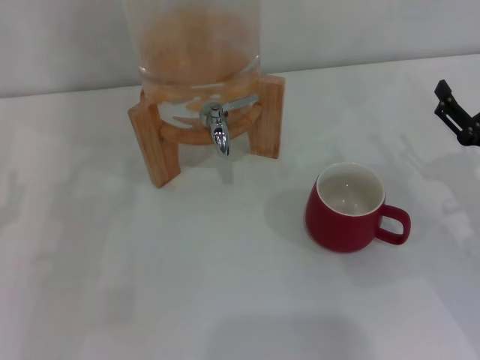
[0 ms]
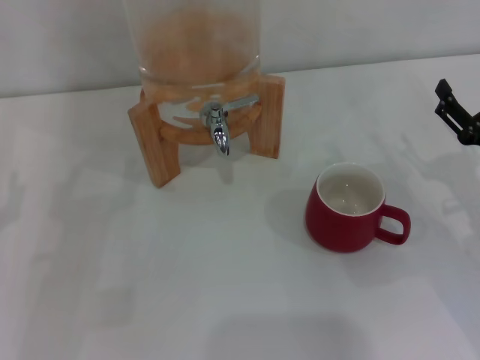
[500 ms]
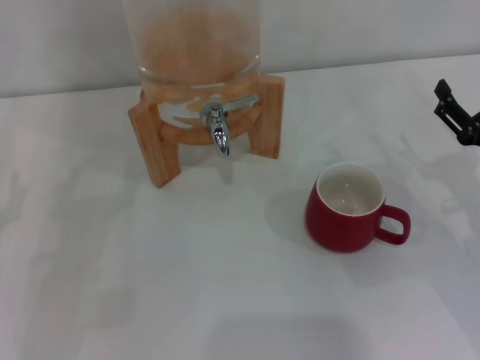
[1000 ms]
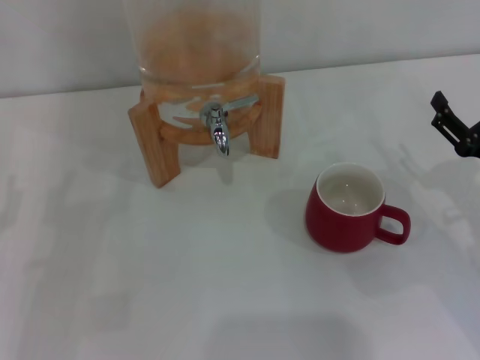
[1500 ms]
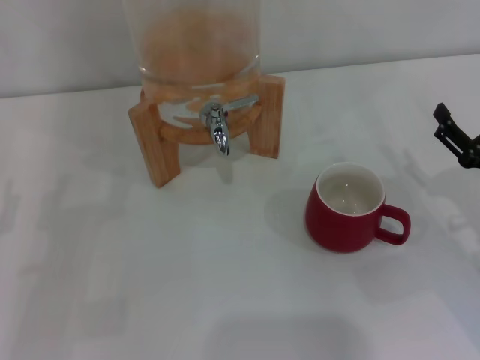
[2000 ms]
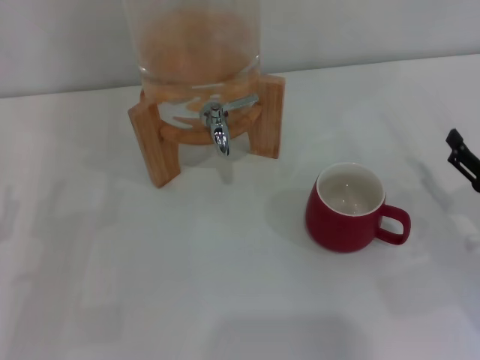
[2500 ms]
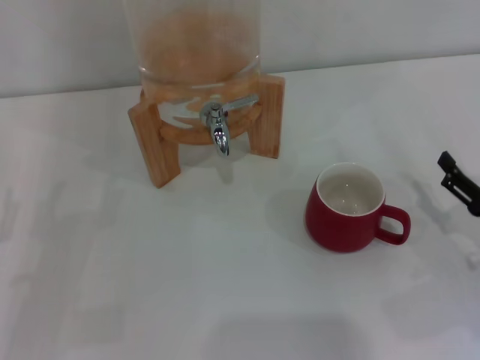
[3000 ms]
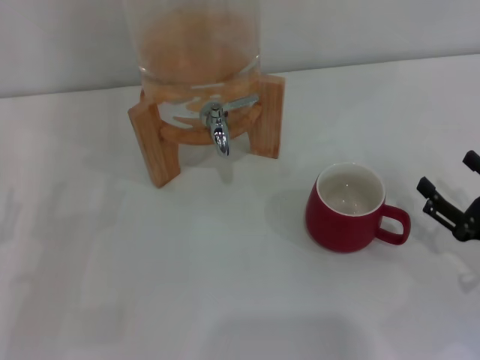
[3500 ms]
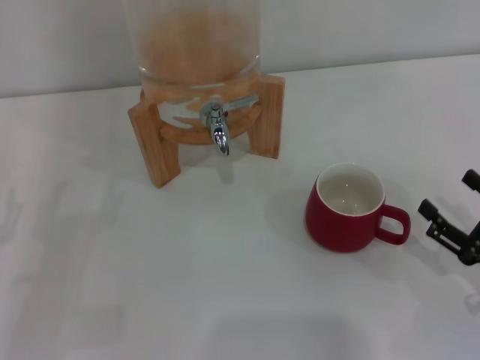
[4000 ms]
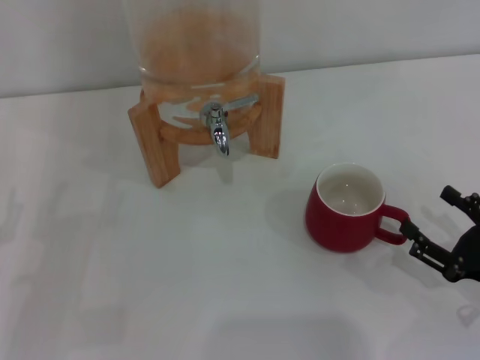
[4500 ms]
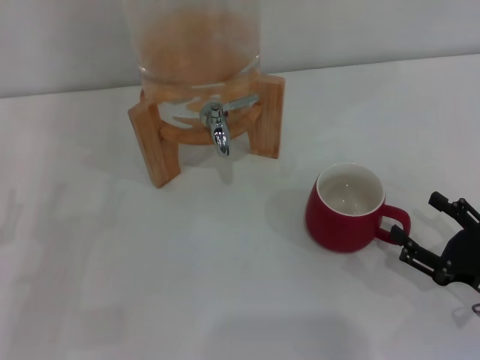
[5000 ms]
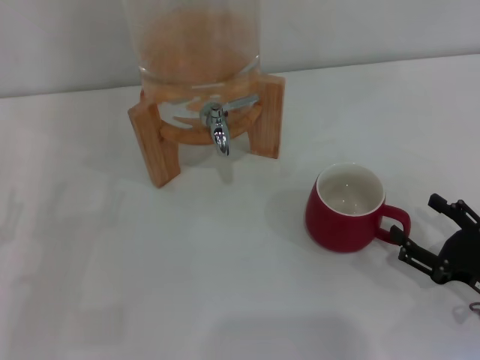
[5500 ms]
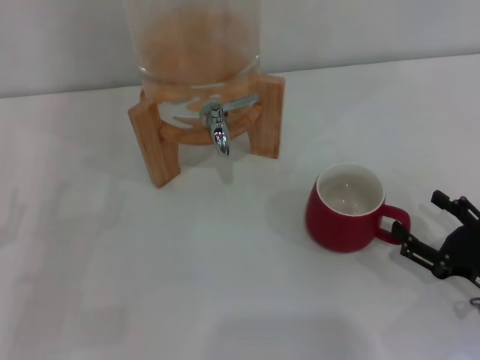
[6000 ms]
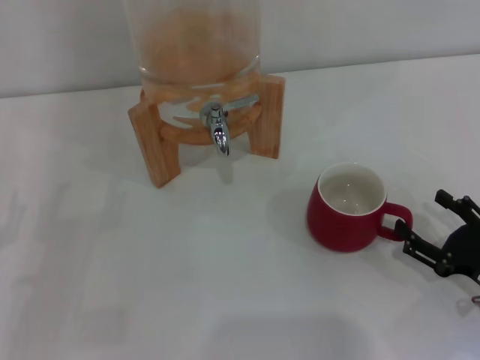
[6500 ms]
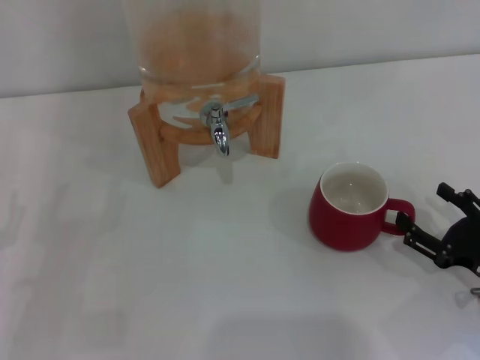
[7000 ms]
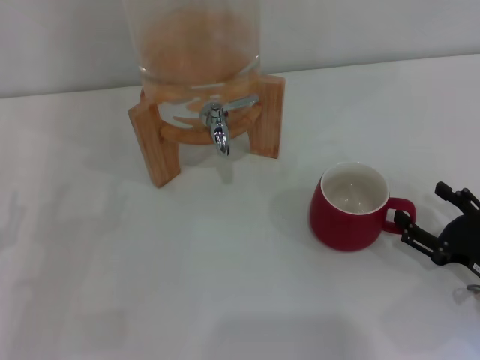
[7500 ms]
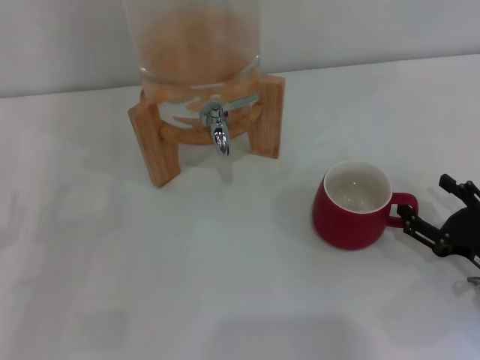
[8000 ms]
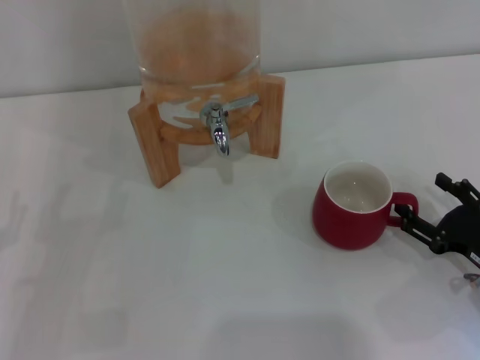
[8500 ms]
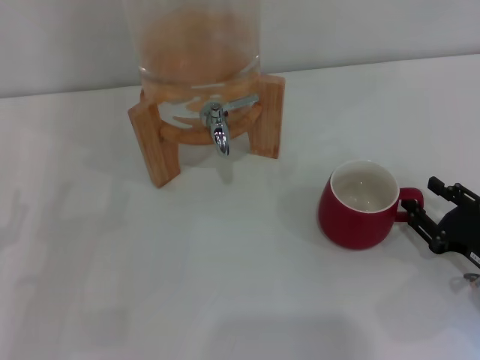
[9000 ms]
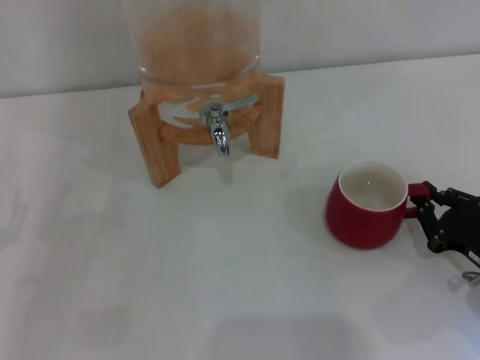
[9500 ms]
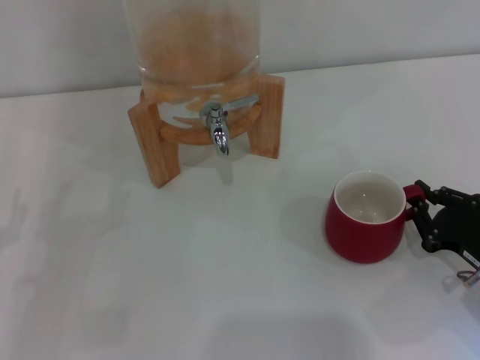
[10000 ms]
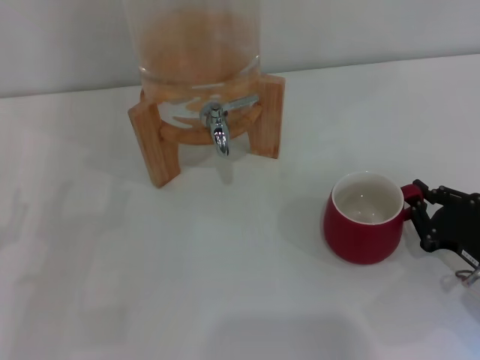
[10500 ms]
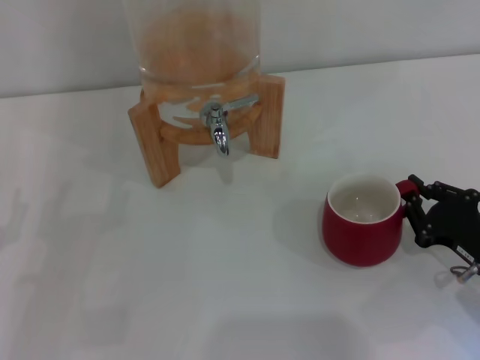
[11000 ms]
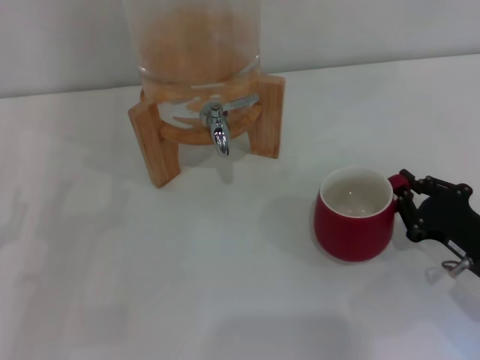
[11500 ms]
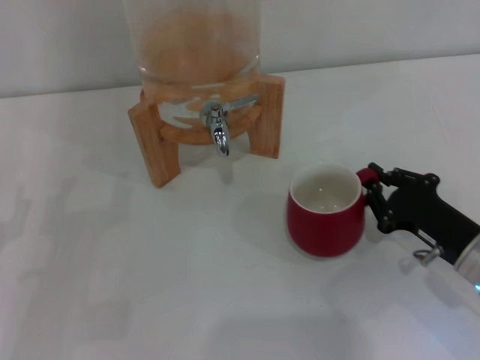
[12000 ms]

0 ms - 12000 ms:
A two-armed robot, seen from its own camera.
Task of the whole recording: the right gripper pick up the red cup and place it horizontally under the faucet, the left gripper turn on the faucet to fill the cup, and then turn off the faucet.
0 ms - 2000 ms: There are only small adjustments of the grippers.
2000 ms - 4000 ms: The right gripper travels backward by approximately 10 cm.
4000 ms - 8000 ms: There are only small adjustments of the grippers.
8000 ms - 10000 ms: The right gripper closes its fingers.
10000 ms - 12000 ms: The grippers stay close to where they were, moving slightly.

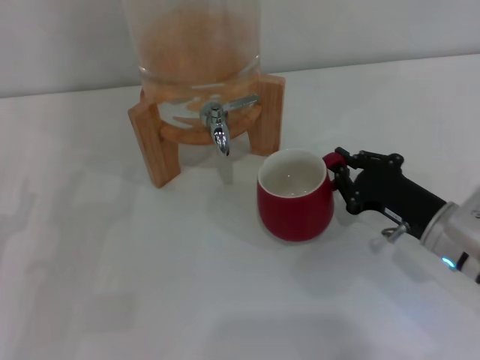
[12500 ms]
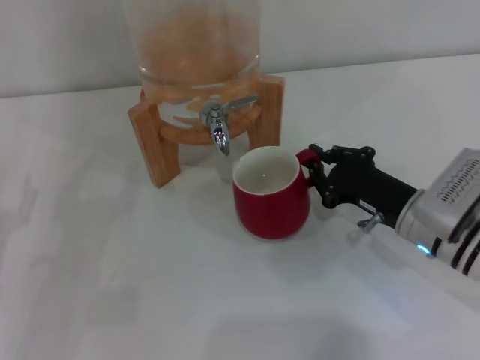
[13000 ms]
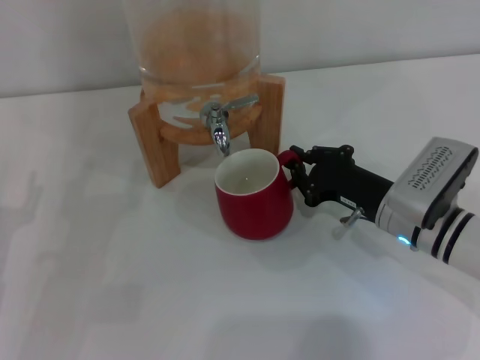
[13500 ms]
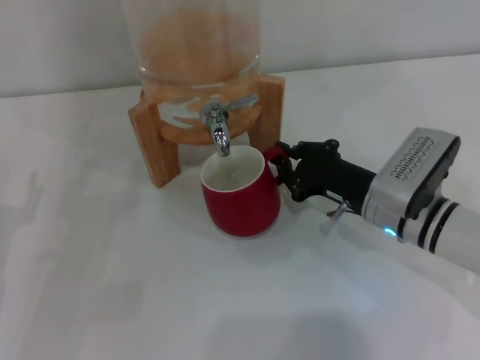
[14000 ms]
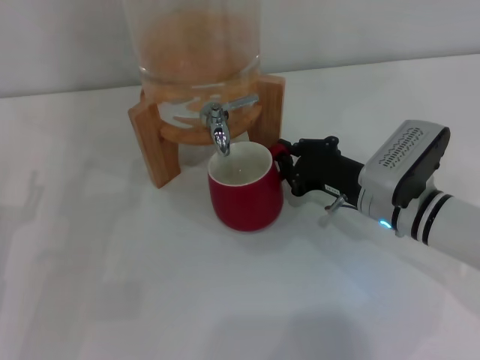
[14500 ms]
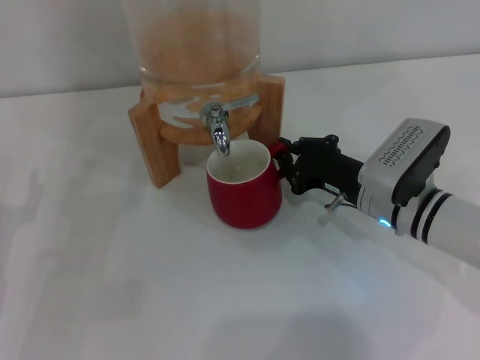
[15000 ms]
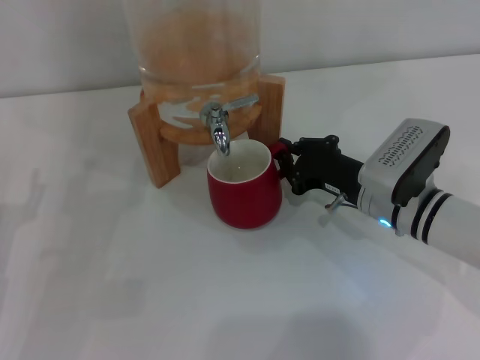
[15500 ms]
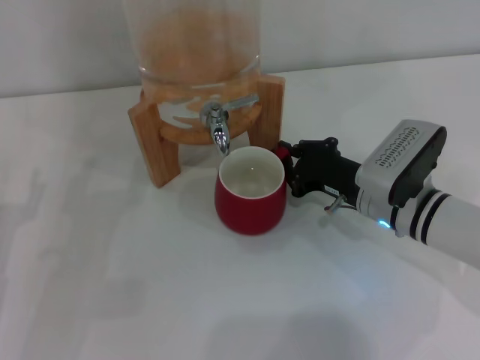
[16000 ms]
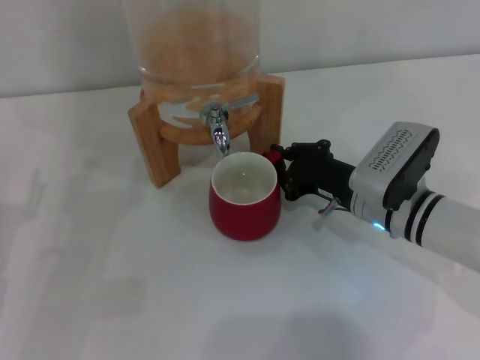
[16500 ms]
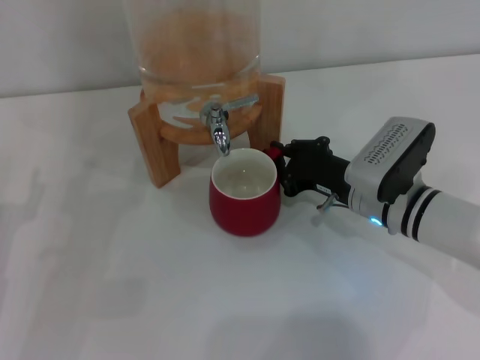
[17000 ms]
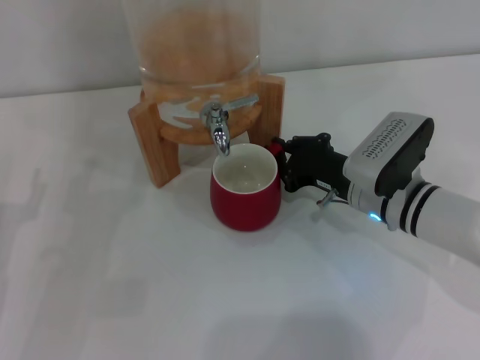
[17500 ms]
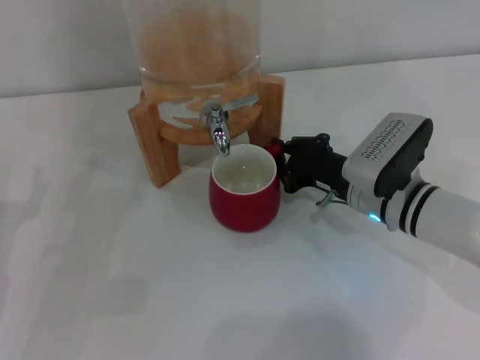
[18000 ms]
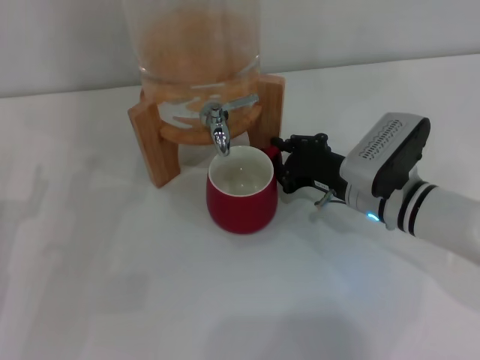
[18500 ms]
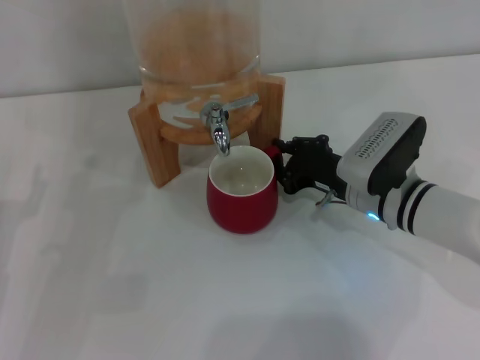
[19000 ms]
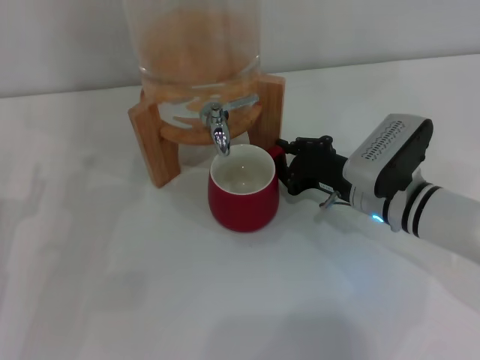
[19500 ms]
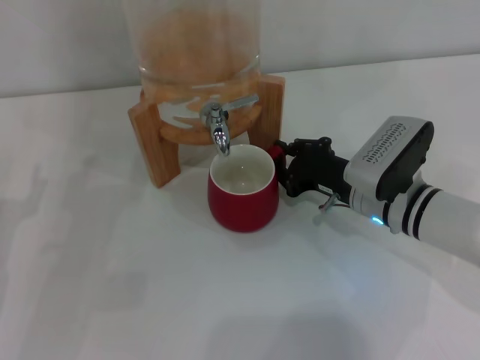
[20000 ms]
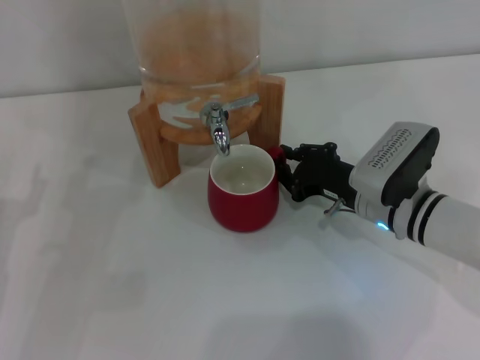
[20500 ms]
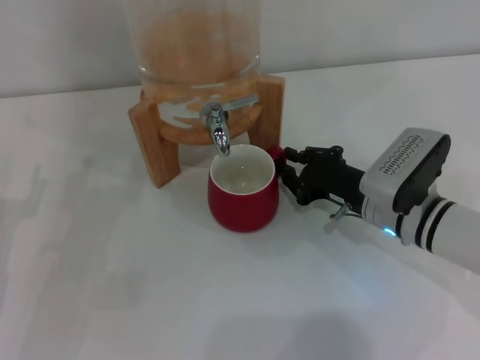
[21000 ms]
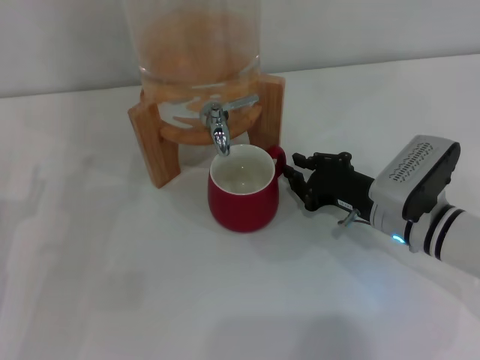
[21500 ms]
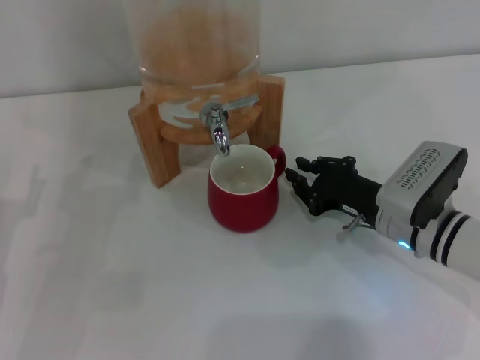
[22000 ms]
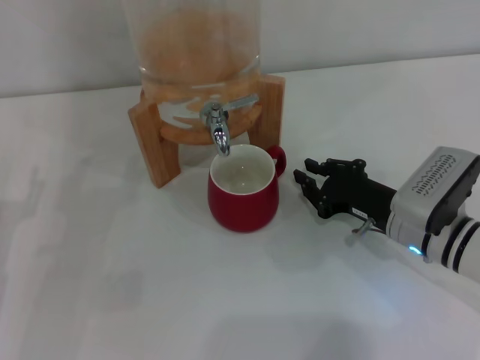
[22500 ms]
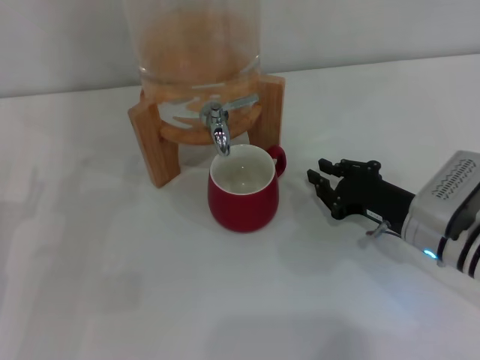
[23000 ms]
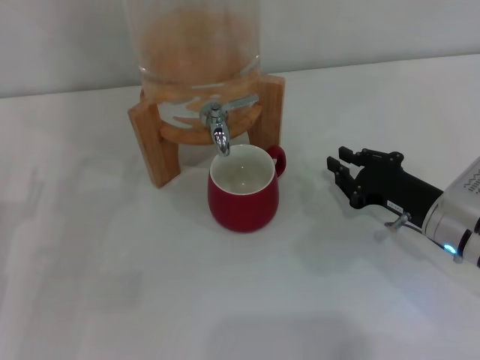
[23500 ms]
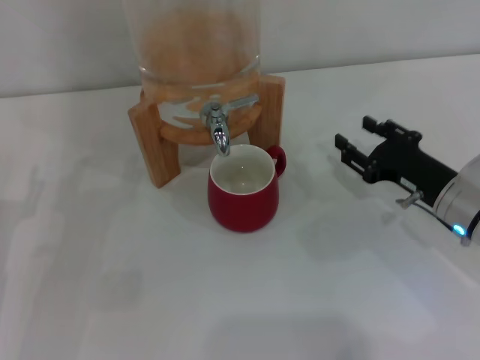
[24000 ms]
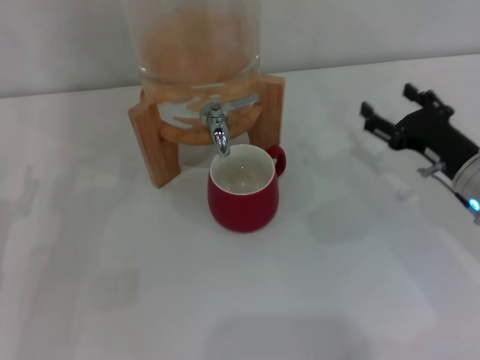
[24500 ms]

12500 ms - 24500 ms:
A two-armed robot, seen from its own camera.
Task of the whole recording: the right gripper pick up the red cup and place it horizontally under the faucet, the left gripper turn on the faucet to fill the cup, and then turn off the faucet.
Step, 12500 ms - 22000 ms: Move the cup beneath the water dispenser nozzle with the right gripper.
12500 ms - 14500 ms: The right gripper heads forward and to the left, covering roughly 10 cm.
14500 ms - 16500 ms: Both grippers stay put.
16500 ms - 18500 ms: The two grippers keep their place.
18500 ms - 20500 ms: The two grippers keep their place.
20500 ms - 22500 ms: The grippers make only small movements.
22500 ms - 24500 ms: The right gripper heads to the right, covering roughly 5 cm, and opens.

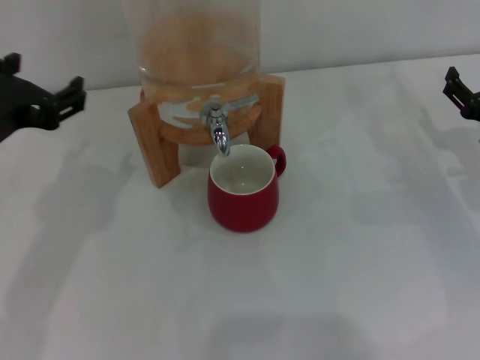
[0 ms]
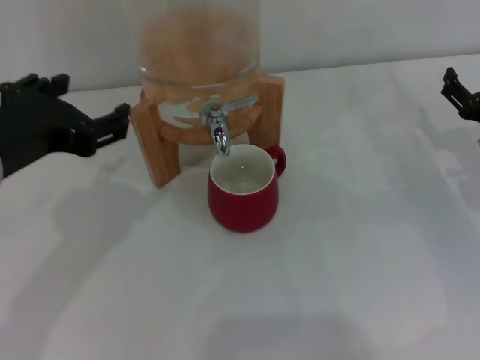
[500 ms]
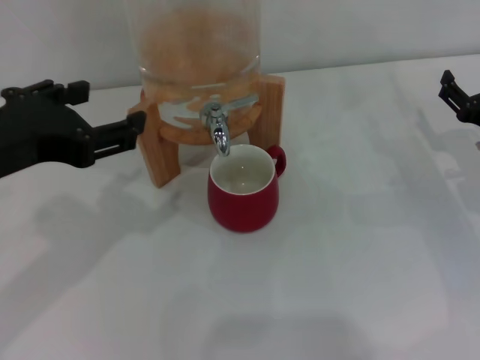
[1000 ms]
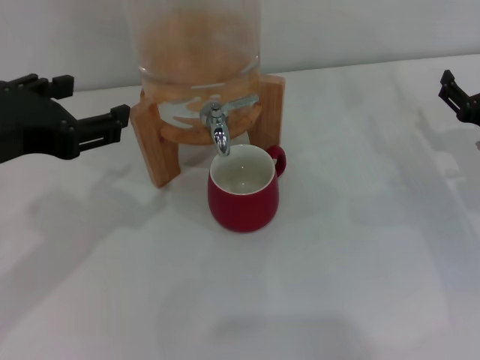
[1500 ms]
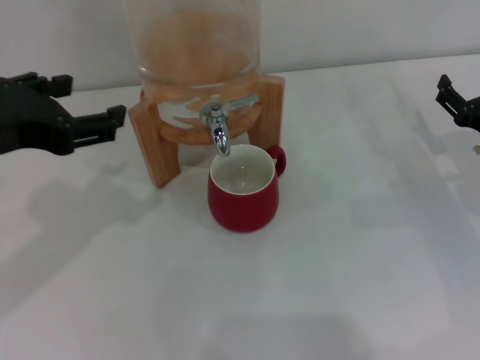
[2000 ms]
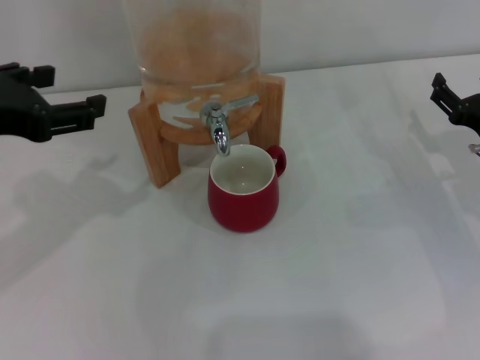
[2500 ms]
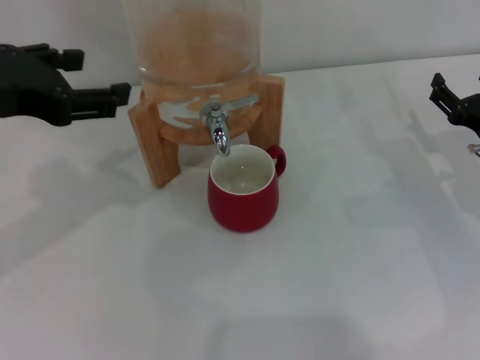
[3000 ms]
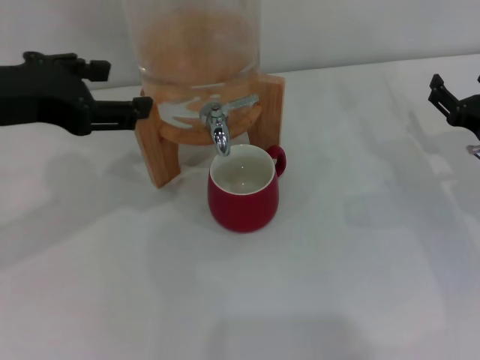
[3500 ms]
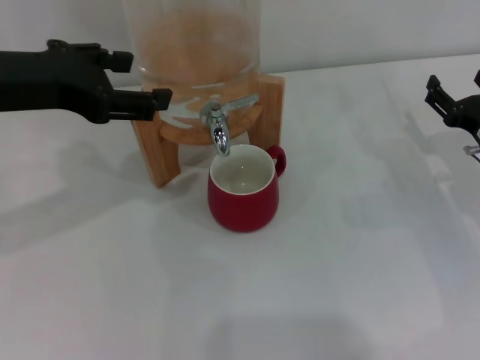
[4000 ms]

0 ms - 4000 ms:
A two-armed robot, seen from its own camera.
Task of the whole recording: the right gripper pick up the red cup and place it horizontally under the faucet, the left gripper turn on the faucet to fill the cup, and then turn off the faucet.
2000 ms - 4000 ms: The left gripper shifts approximately 5 cm forward.
